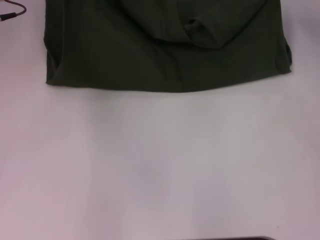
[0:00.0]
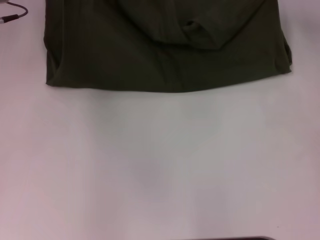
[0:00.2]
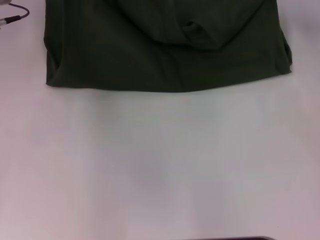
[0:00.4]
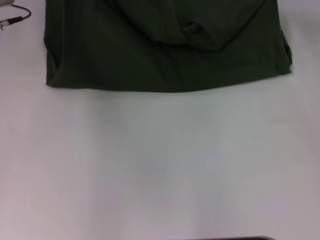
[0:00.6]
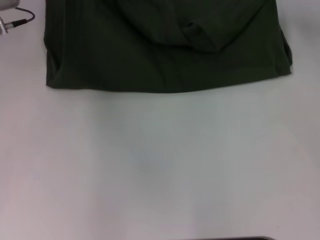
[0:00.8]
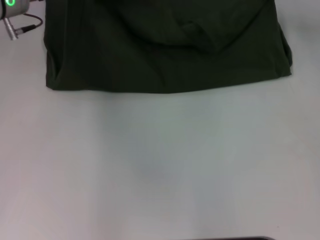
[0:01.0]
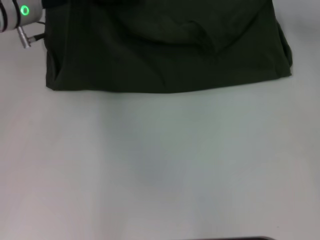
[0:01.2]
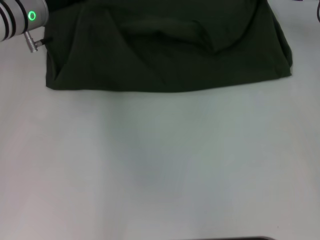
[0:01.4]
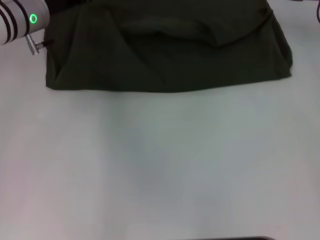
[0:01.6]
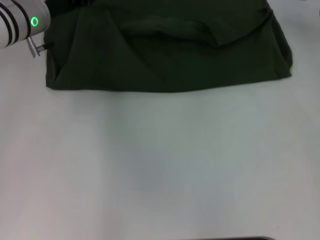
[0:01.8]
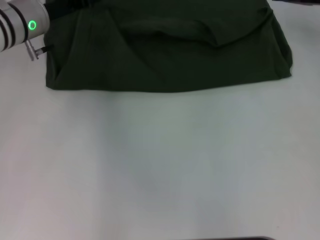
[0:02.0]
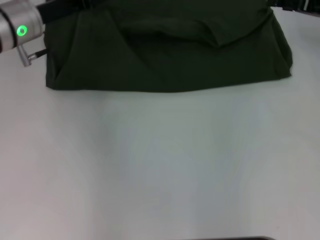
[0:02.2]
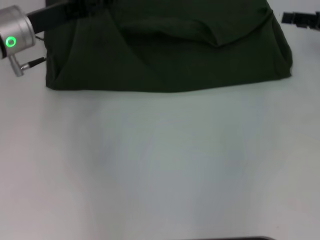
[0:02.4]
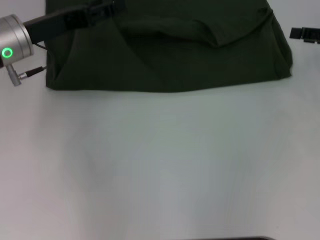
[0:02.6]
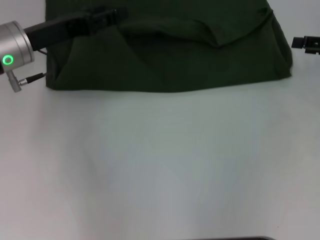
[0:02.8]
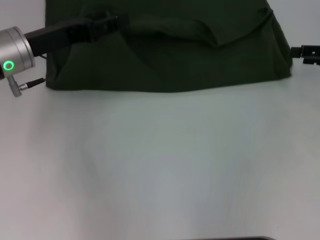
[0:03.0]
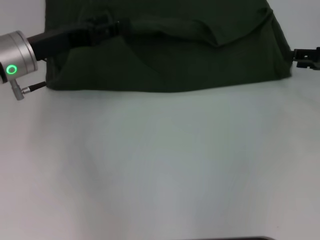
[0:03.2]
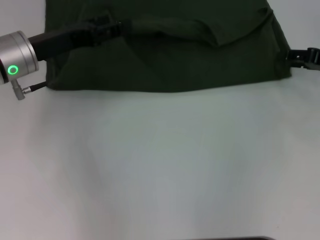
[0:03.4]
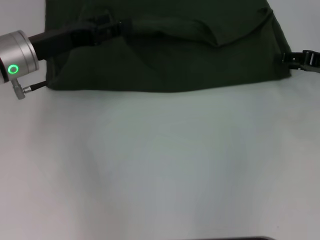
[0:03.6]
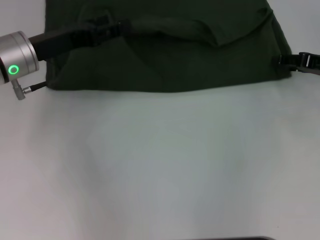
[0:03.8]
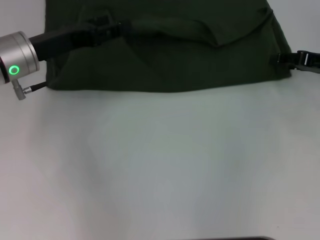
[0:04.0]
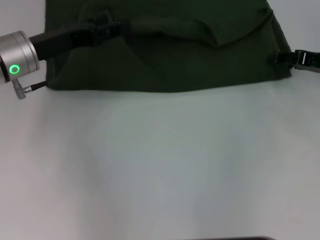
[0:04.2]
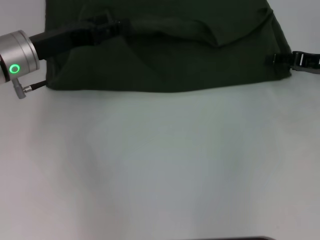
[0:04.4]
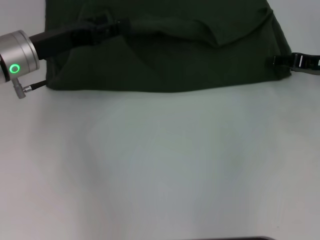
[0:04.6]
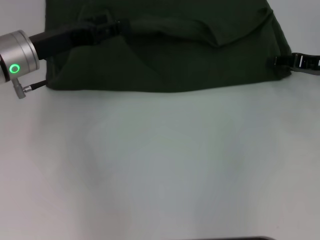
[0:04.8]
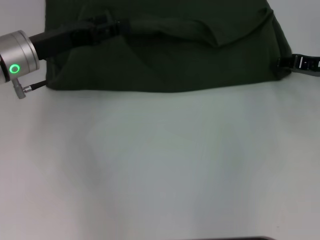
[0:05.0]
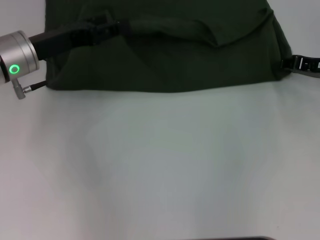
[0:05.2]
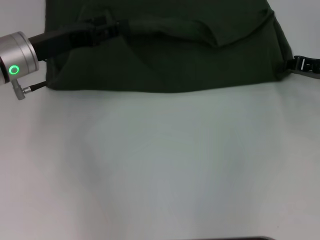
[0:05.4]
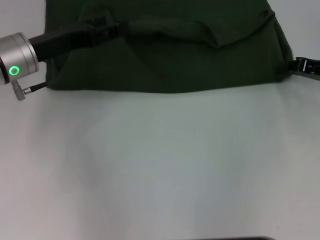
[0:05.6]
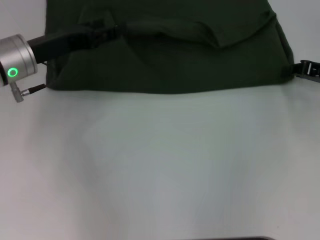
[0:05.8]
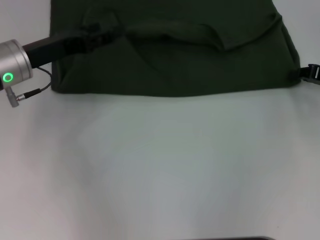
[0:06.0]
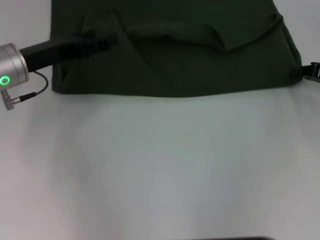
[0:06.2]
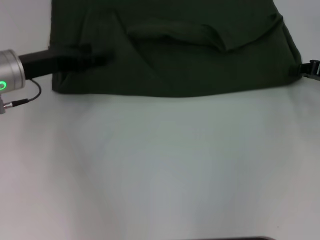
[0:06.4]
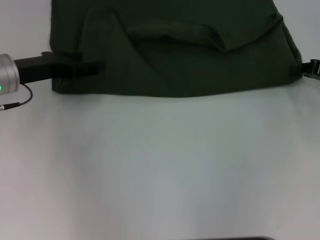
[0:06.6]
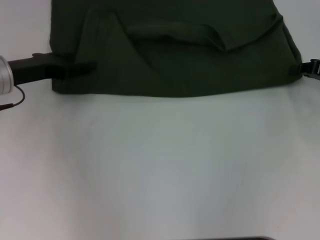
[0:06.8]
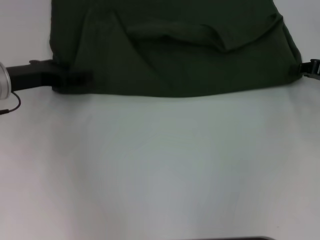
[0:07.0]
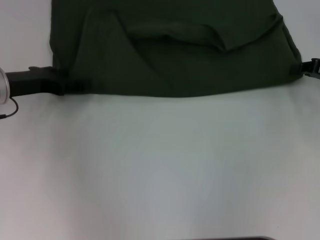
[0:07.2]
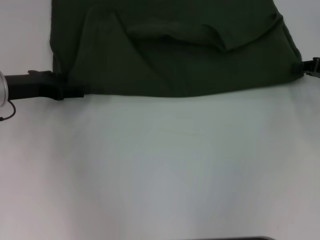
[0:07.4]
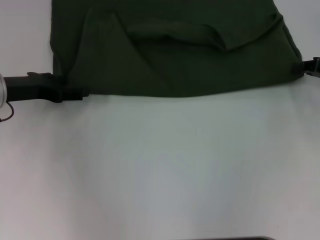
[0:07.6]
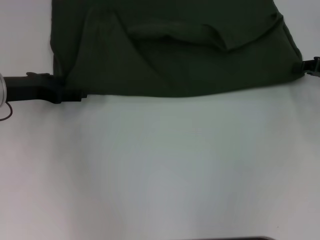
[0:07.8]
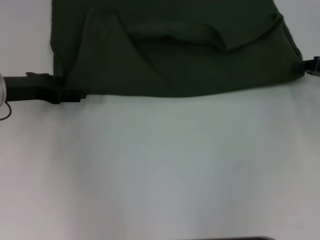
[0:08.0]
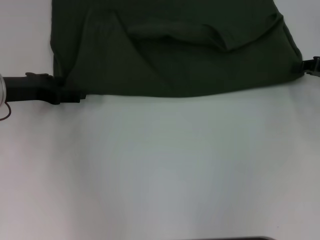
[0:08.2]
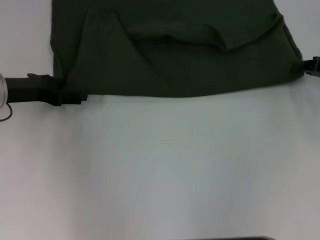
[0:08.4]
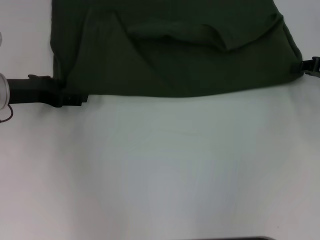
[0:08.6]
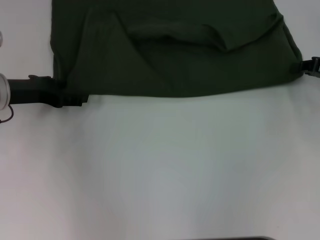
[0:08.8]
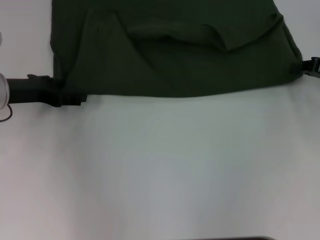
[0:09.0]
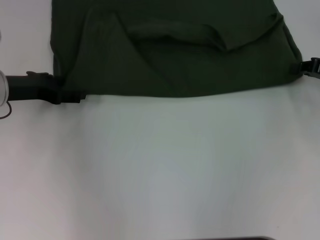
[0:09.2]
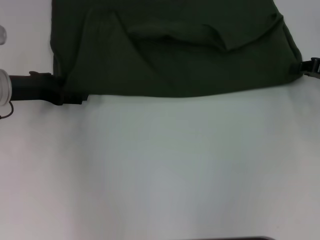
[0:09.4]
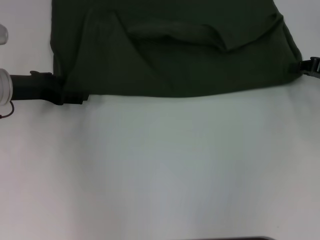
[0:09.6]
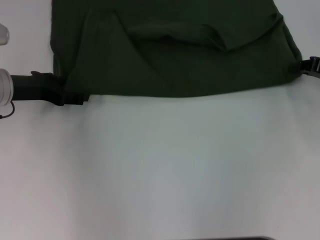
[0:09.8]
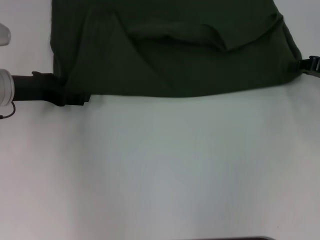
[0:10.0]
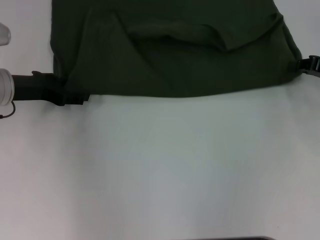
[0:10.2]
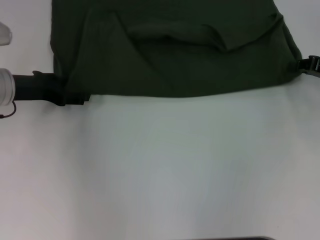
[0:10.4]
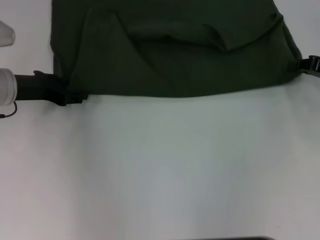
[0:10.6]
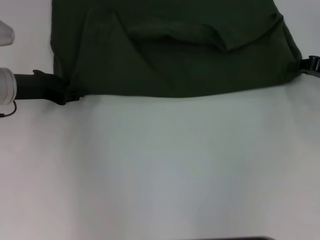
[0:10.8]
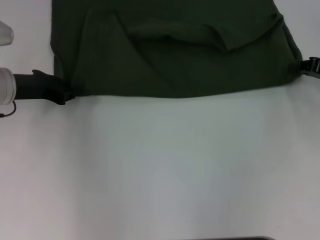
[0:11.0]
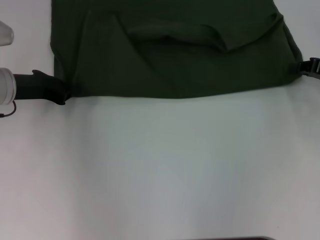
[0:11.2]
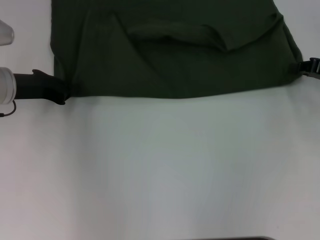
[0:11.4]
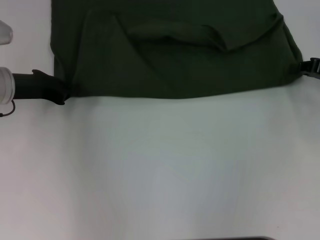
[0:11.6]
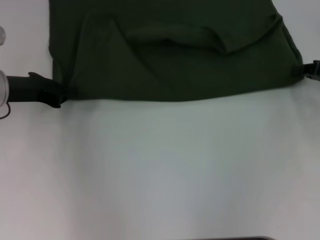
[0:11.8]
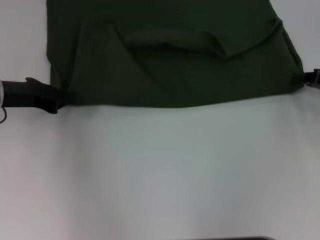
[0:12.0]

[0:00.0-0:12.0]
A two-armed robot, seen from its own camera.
0:00.0 to 0:01.6: The left gripper is displaced downward by about 5 cm.
0:01.6 to 0:03.0: The left gripper heads backward, covering approximately 10 cm, and opens up. Meanwhile the right gripper shifts approximately 15 cm backward and to the right, and opens up.
0:03.0 to 0:04.4: There are only small adjustments of the grippers.
0:04.4 to 0:06.0: The right gripper closes up.
0:07.6 to 0:09.0: There are only small adjustments of the grippers.
0:09.0 to 0:10.4: The two grippers keep their place.
0:10.4 to 0:12.0: The left gripper closes up.

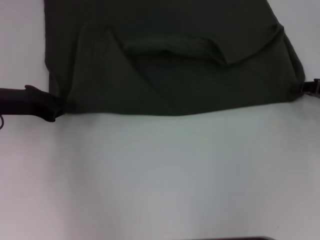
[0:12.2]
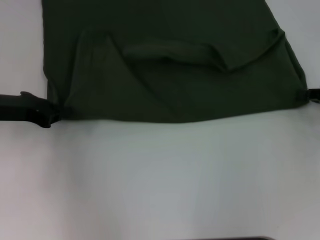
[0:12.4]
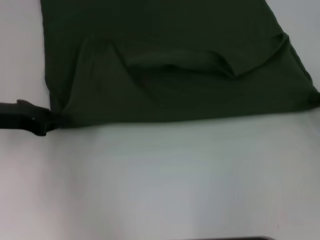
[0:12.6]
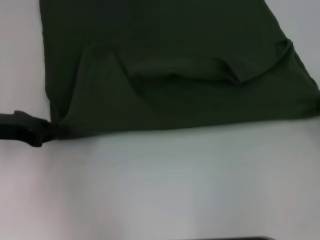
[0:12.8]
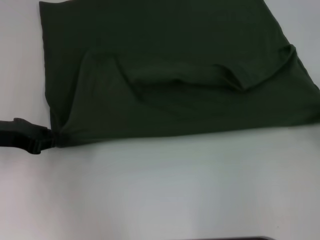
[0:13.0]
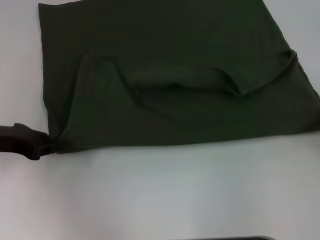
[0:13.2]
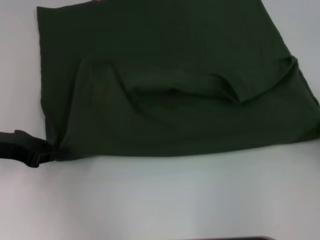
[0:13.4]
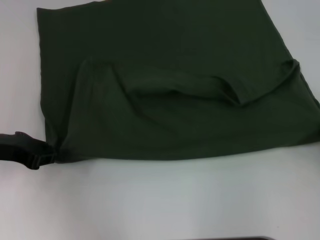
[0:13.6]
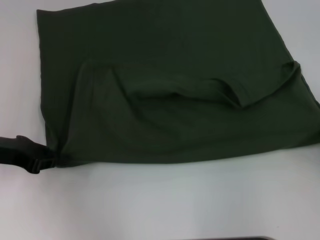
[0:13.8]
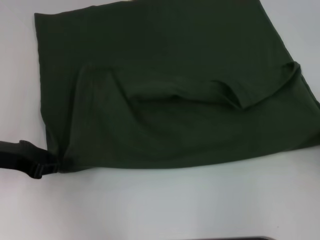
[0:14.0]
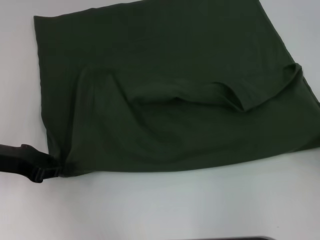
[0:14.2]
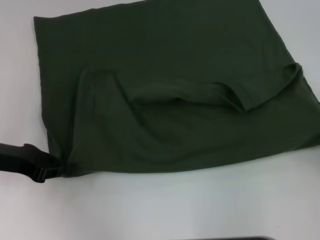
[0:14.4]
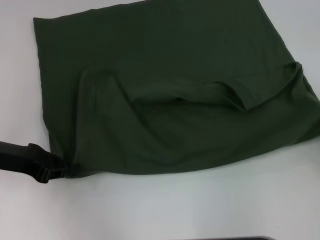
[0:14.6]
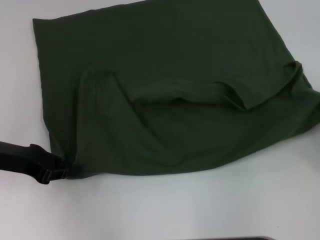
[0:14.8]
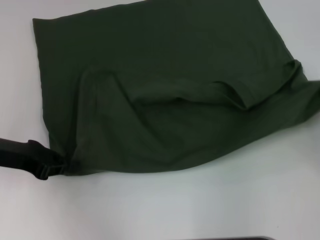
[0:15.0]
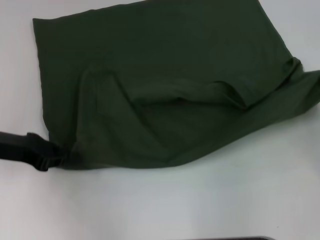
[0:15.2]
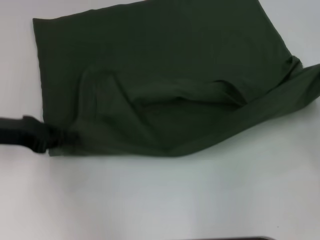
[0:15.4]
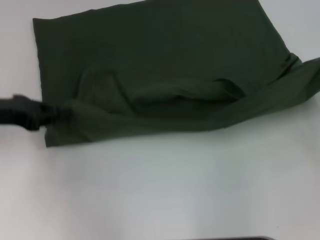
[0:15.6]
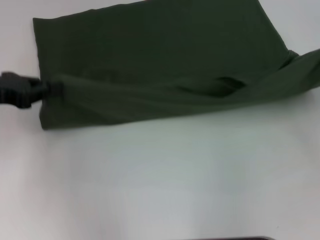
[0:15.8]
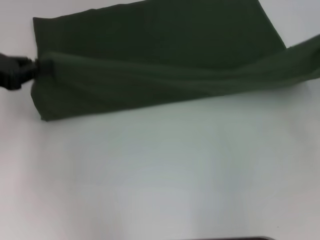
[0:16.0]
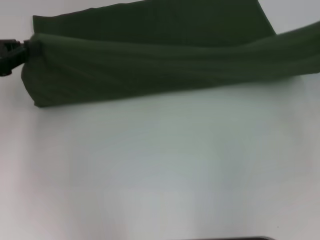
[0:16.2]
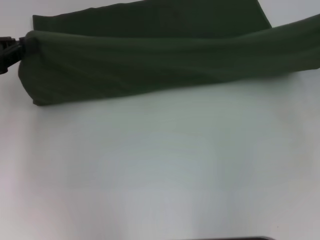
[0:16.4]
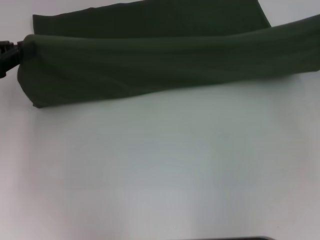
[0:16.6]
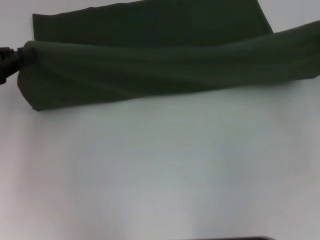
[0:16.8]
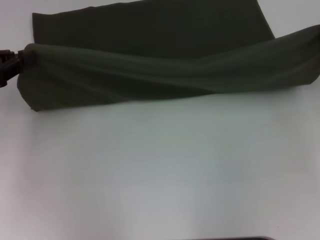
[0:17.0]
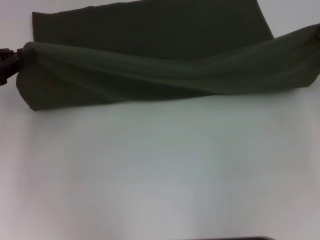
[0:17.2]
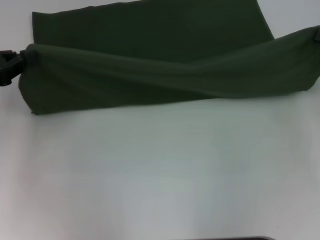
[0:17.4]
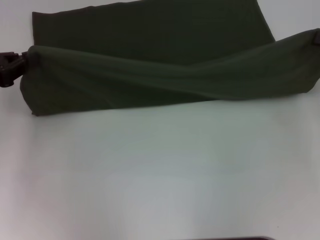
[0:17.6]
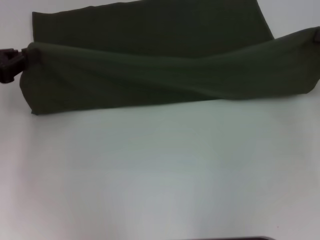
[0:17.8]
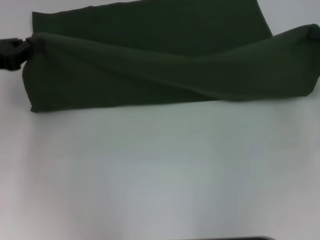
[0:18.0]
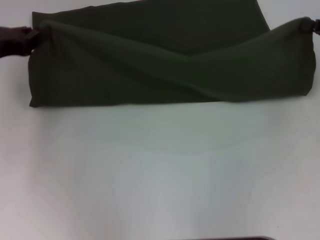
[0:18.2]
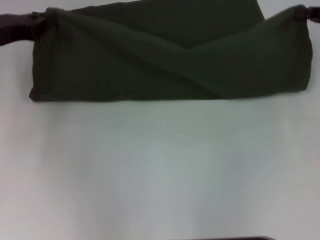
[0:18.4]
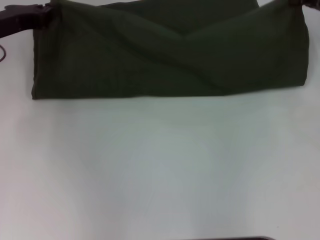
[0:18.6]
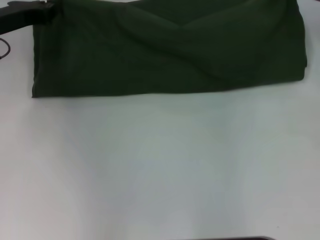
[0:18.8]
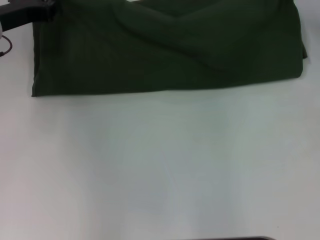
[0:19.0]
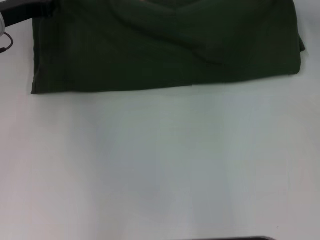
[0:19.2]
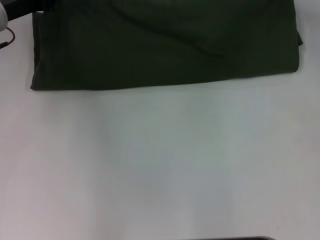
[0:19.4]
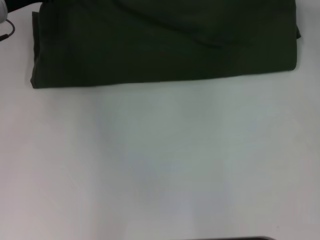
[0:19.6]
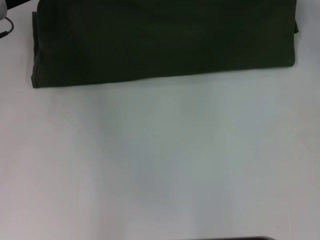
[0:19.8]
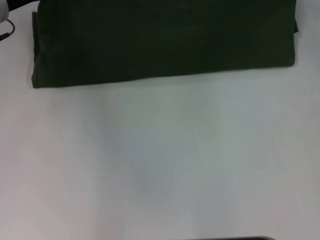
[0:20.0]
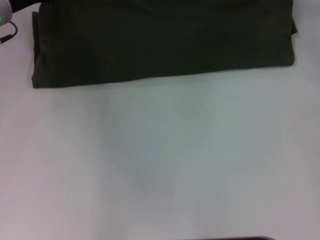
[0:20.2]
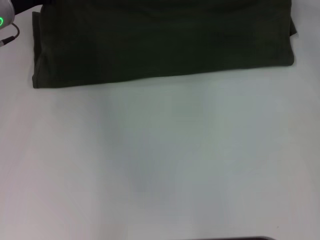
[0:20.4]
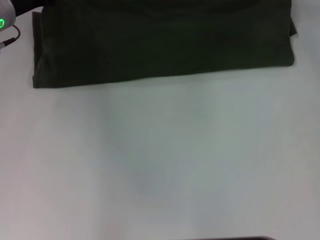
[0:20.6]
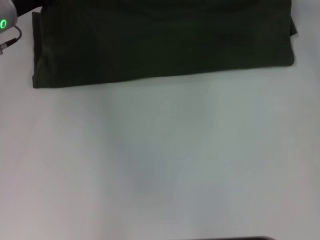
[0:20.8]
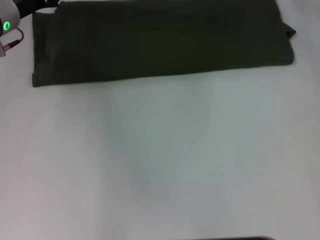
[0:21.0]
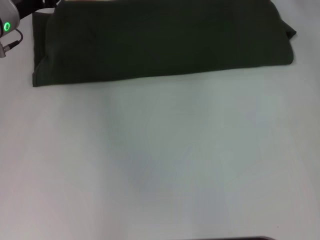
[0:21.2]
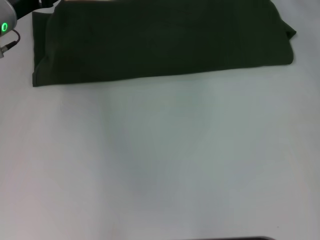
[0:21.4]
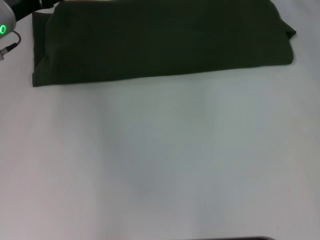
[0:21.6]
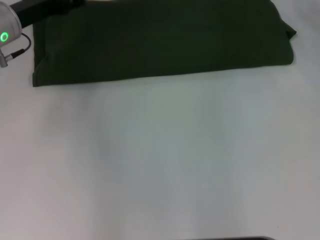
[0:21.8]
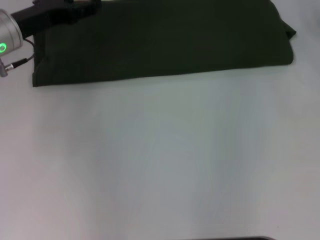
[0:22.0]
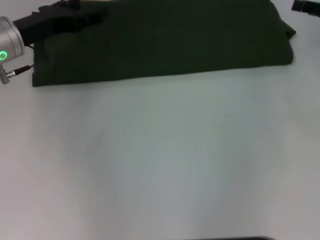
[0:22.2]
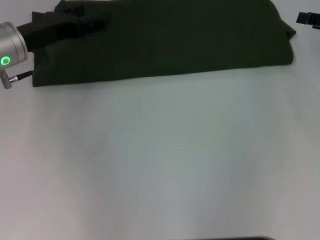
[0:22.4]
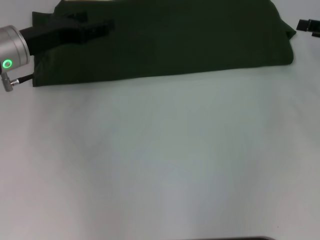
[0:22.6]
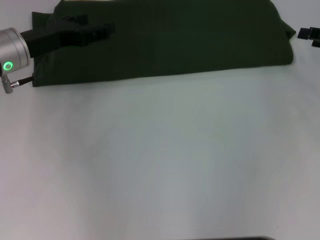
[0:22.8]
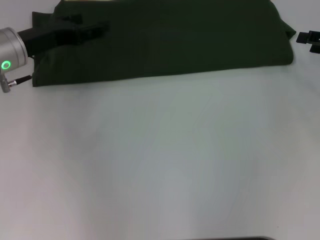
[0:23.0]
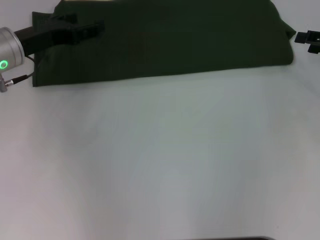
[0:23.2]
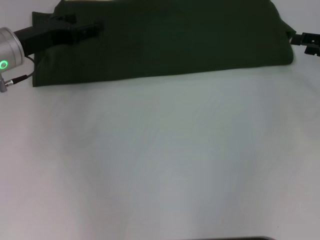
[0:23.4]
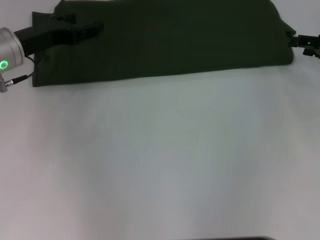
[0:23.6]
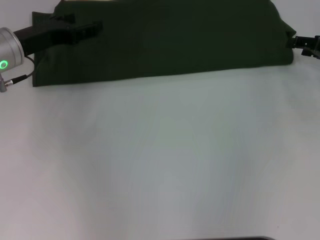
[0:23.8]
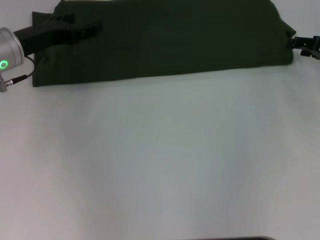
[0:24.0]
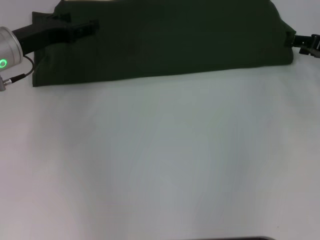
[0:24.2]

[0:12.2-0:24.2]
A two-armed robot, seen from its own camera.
Step, 0:12.2 to 0:14.2: Pull the clothes with your left hand.
Step, 0:12.2 to 0:14.2: Pull the clothes with your right hand.
Step, 0:14.4 to 0:21.0: Fold the clothes with your left hand.
Step, 0:14.4 to 0:21.0: Fold the clothes with your right hand.
0:12.2 to 0:13.8: The left gripper shifts some 5 cm backward. Meanwhile the right gripper travels backward by roughly 10 cm.
0:13.8 to 0:15.2: The right gripper heads forward, covering some 5 cm.
0:15.2 to 0:16.6: The grippers both shift upward by approximately 5 cm.
0:16.6 to 0:18.2: The right gripper shifts by some 5 cm. Meanwhile the left gripper shifts by about 5 cm.
0:18.2 to 0:19.8: The right gripper shifts about 15 cm forward and to the left. Meanwhile the left gripper heads forward and to the right, covering about 10 cm.
0:19.8 to 0:21.2: The grippers make only small movements.
0:21.2 to 0:22.6: The left gripper travels backward by approximately 5 cm, and opens up.
0:22.6 to 0:24.2: The grippers make only small movements.
